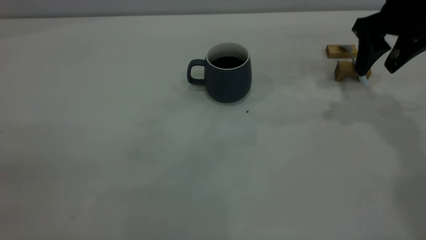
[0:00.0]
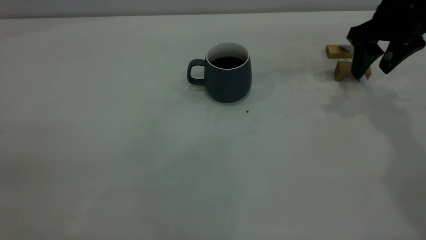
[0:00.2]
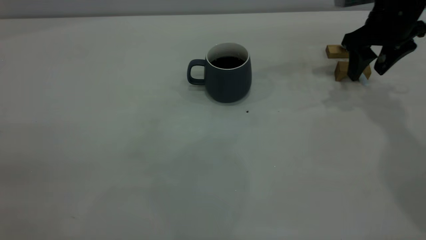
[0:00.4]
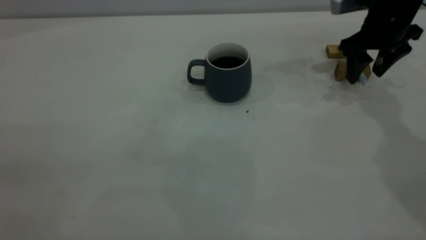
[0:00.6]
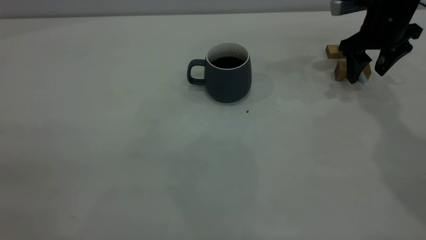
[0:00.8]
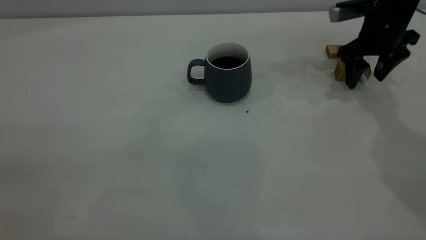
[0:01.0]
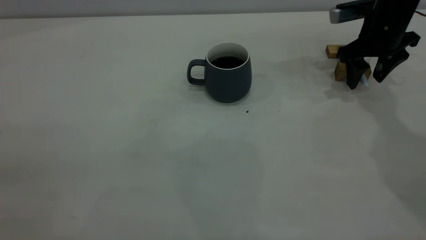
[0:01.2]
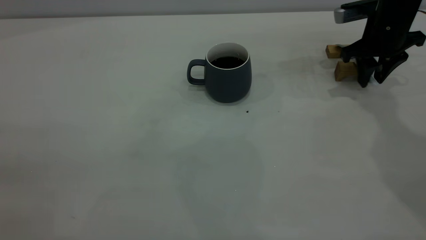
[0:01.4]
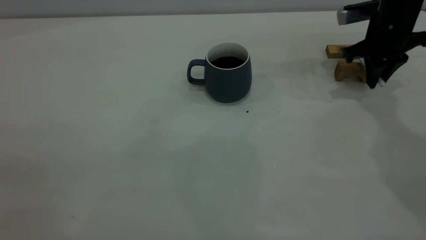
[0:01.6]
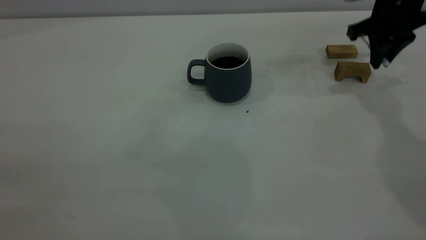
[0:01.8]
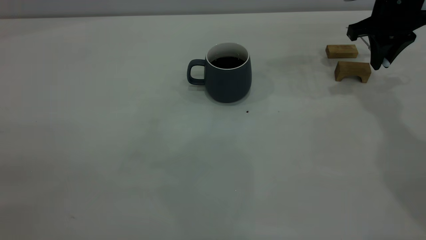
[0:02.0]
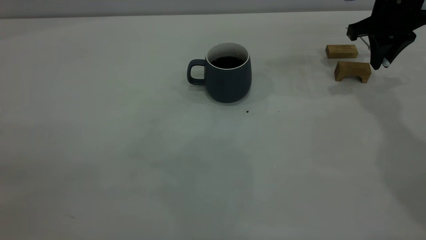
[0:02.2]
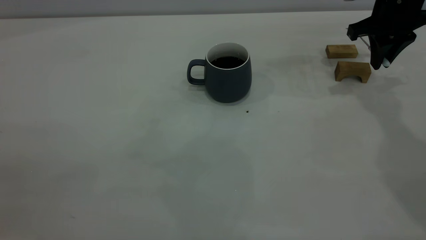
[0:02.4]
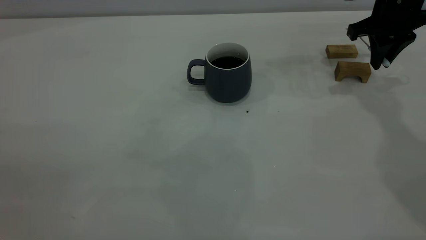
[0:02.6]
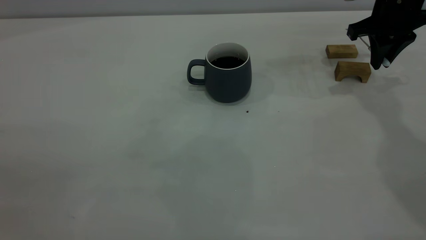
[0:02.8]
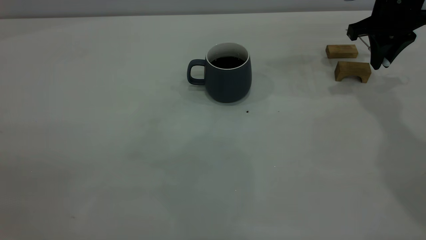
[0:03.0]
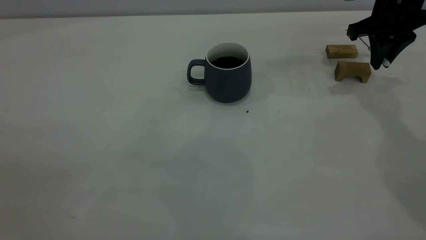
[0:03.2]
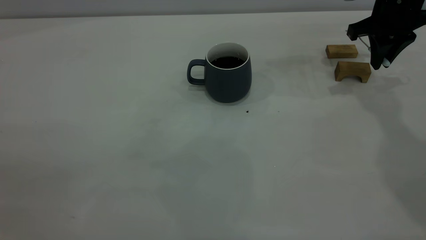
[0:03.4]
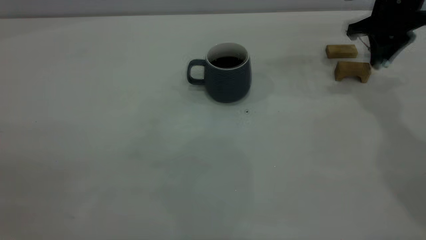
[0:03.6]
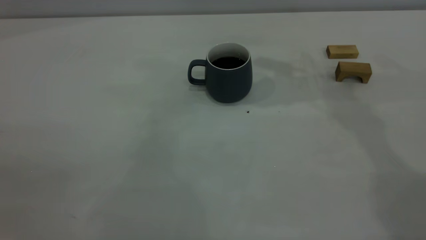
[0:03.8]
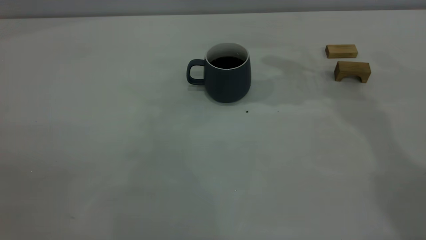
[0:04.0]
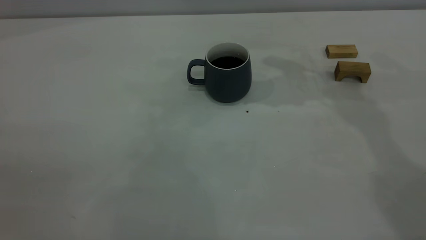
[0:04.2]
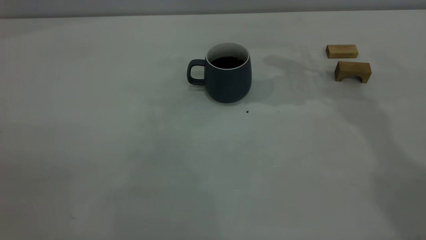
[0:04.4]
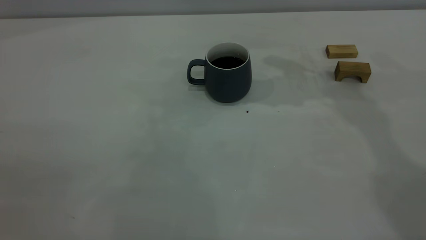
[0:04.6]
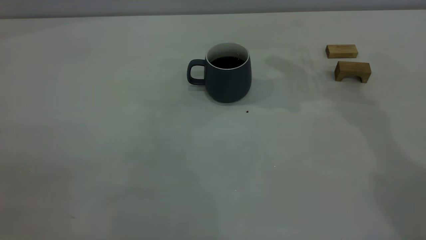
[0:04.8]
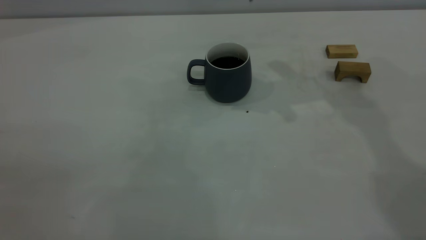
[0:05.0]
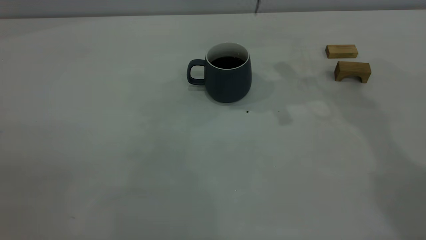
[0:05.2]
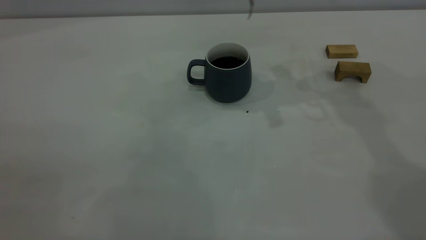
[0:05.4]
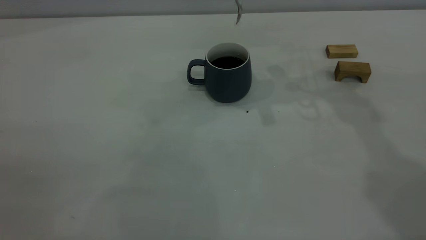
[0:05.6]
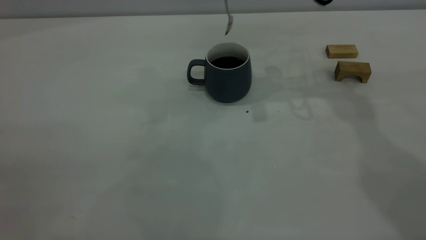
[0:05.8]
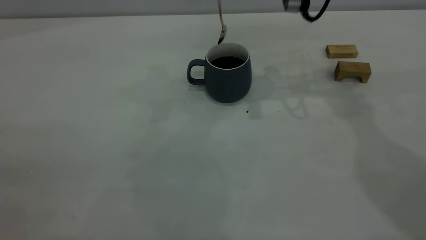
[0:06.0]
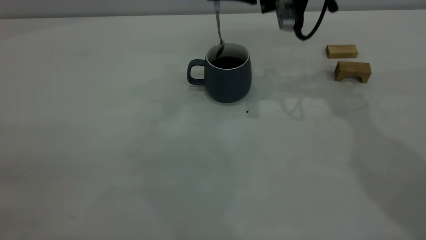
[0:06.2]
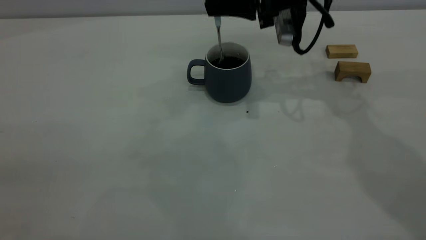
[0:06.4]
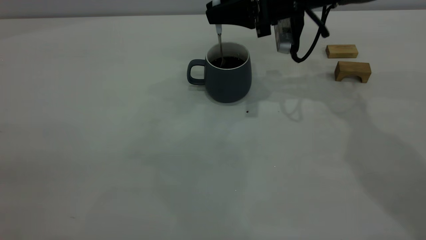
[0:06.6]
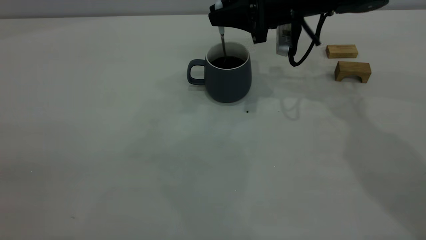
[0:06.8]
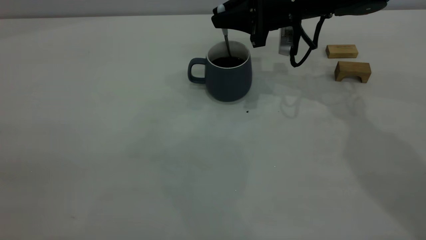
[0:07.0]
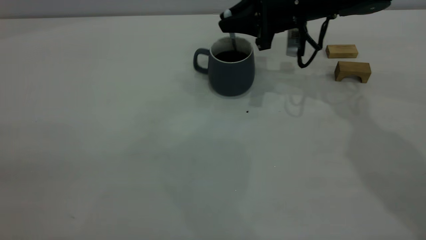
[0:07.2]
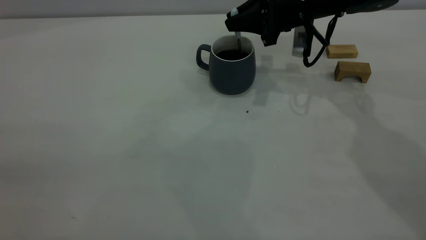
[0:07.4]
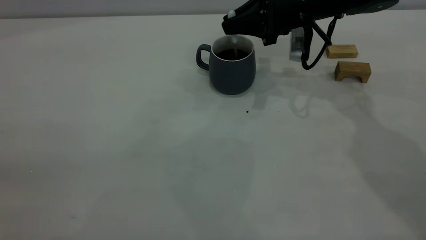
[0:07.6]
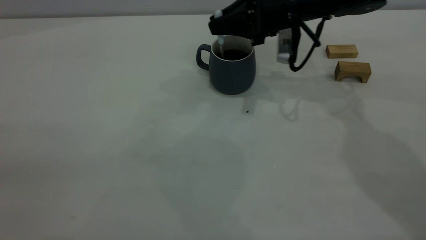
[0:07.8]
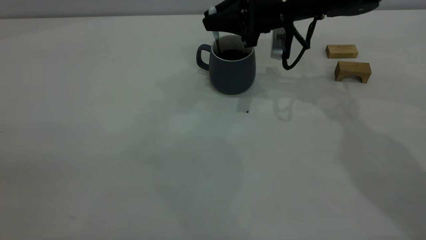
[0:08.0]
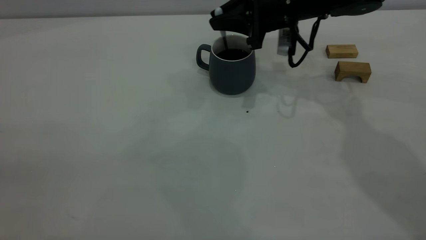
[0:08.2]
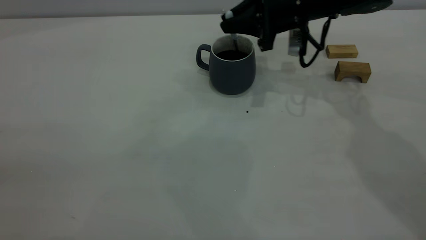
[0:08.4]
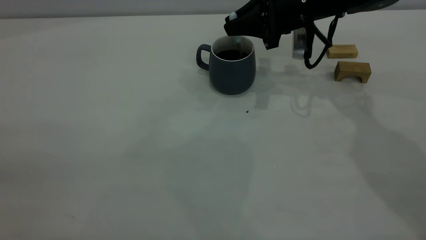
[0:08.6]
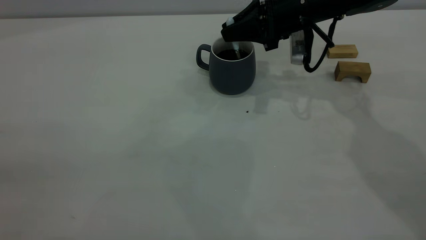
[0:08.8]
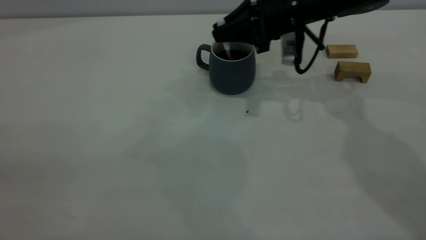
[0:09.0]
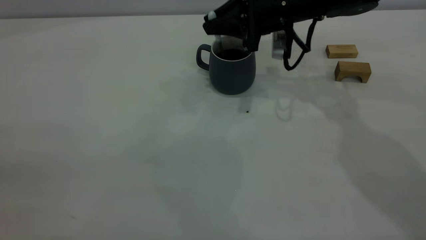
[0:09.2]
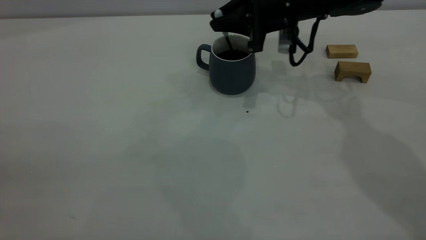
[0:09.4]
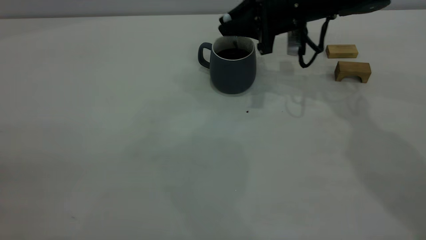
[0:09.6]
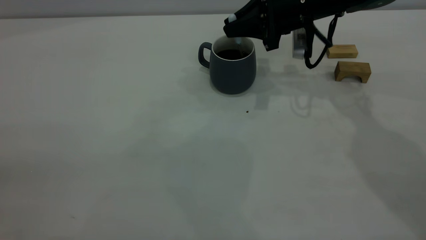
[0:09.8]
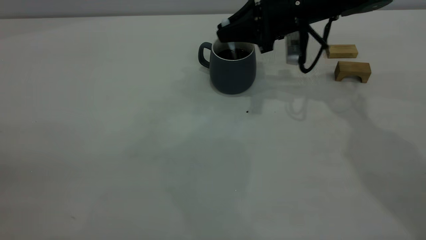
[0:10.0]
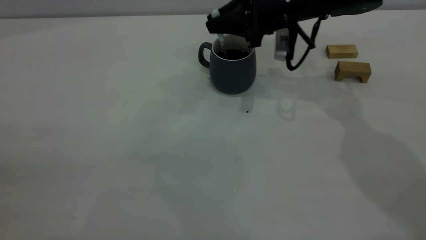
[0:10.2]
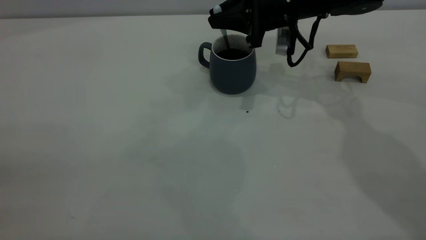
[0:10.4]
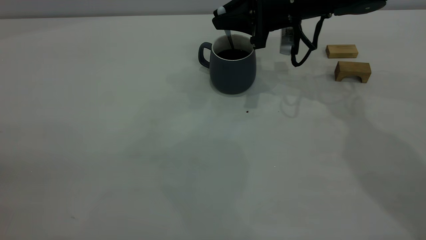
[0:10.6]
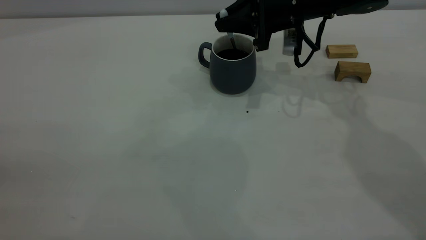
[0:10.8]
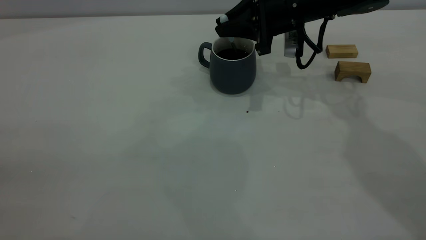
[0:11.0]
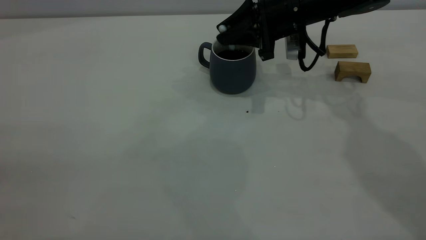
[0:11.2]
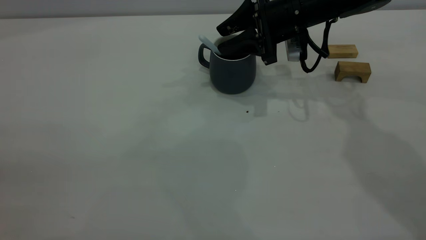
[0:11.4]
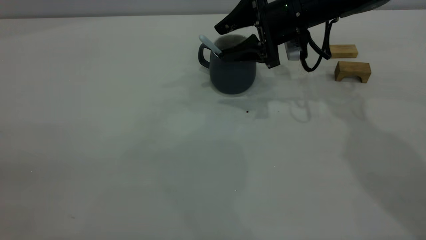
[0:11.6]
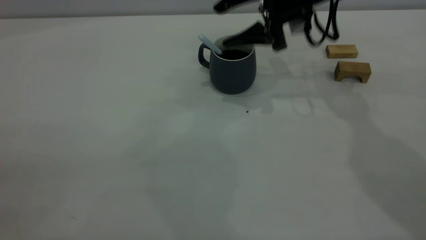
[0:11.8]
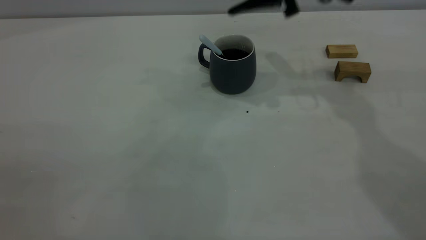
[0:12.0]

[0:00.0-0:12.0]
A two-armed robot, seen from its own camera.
Step, 0:00.0 to 0:03.4: Pick up the spoon.
Step, 0:03.6 to 0:11.8: Stir the coffee in the cup.
0:00.0 to 0:01.6: The right gripper goes some 10 cm downward and forward, and closes up.
0:01.6 to 0:03.0: The grippers stay close to where they were, moving slightly.
0:03.0 to 0:04.4: The right gripper shifts roughly 20 cm upward and to the left.
0:06.0 to 0:07.6: The right gripper goes about 10 cm downward.
0:07.6 to 0:10.4: The grippers move only a little.
0:10.4 to 0:12.0: The right gripper travels upward by roughly 10 cm, and opens its fingers.

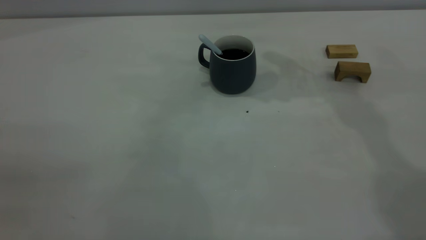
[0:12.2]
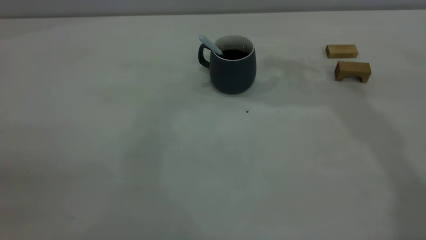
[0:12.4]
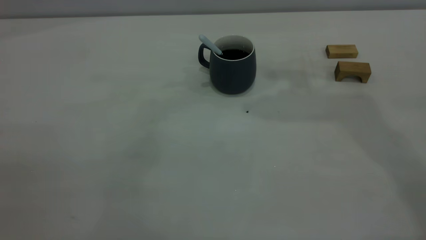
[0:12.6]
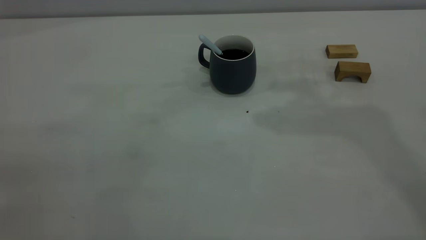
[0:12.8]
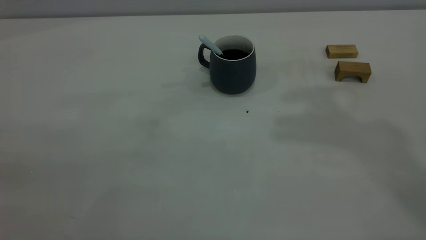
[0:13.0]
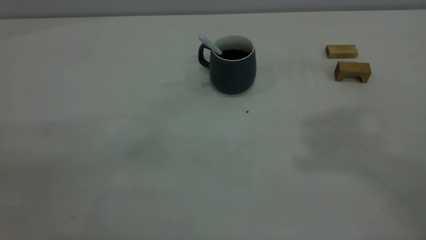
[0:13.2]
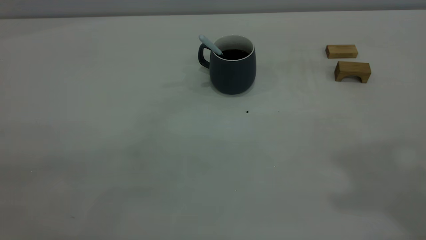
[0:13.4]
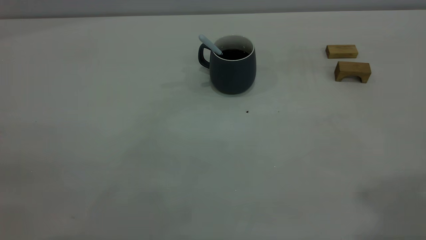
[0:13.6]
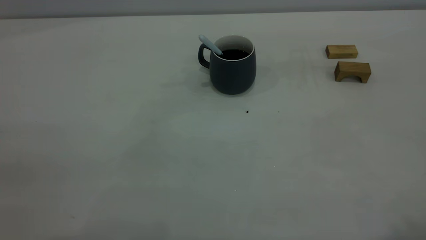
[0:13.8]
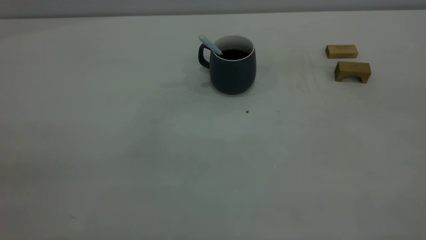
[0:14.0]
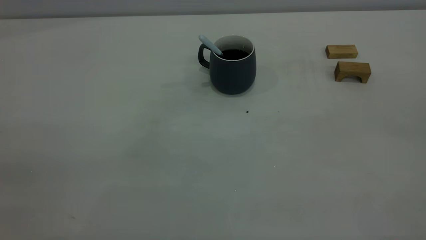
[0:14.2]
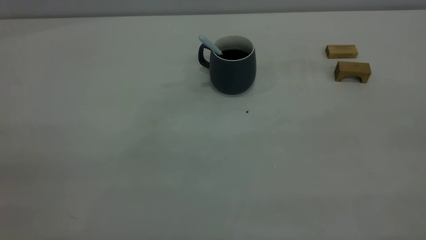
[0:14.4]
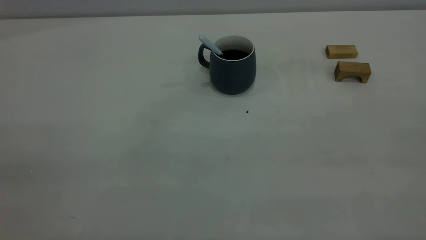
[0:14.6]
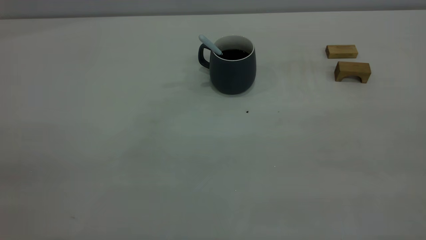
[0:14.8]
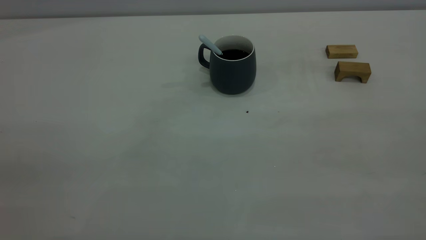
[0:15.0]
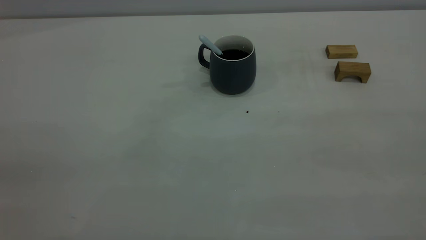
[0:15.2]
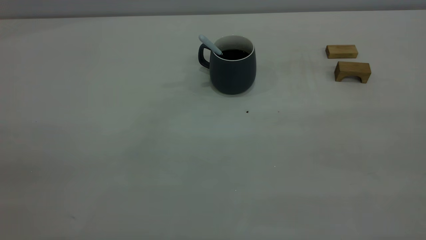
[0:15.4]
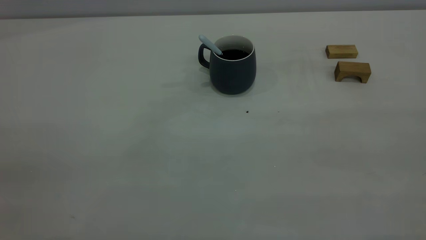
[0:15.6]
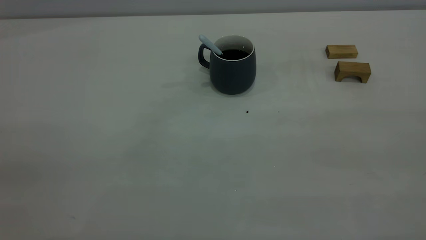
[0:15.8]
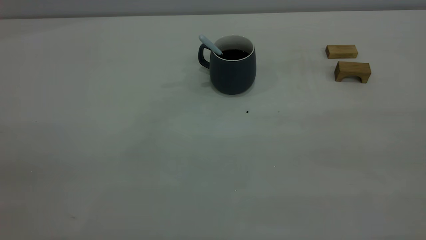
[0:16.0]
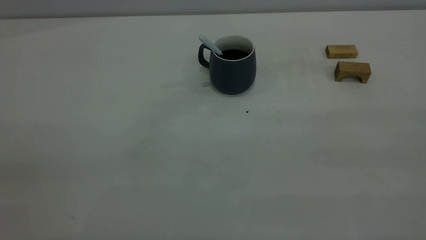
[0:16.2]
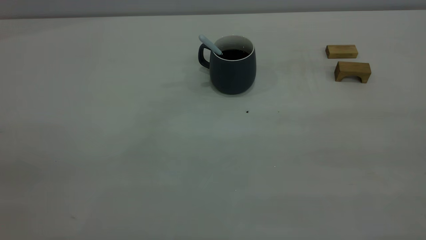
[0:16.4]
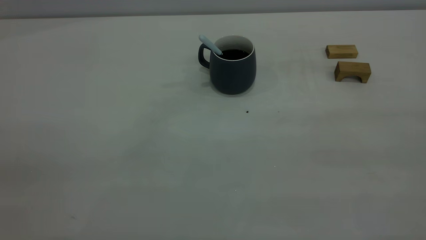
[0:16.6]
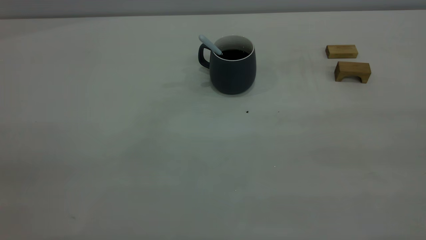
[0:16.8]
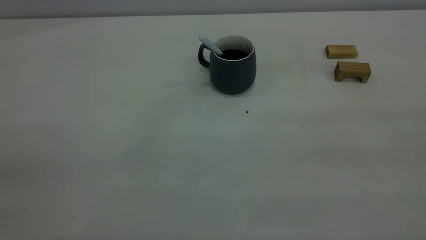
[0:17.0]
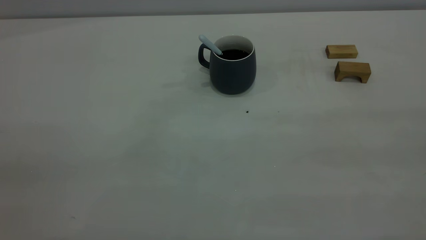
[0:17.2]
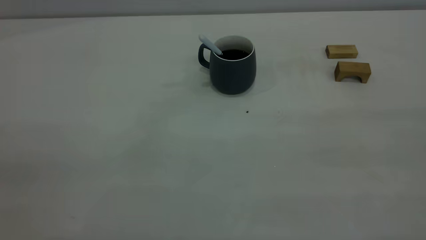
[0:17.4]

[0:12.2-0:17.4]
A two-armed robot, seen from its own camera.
0:15.6 to 0:17.4: Both grippers stay put.
